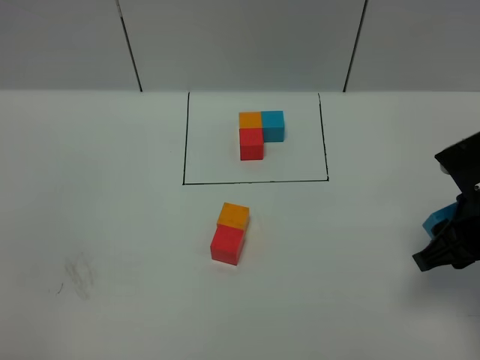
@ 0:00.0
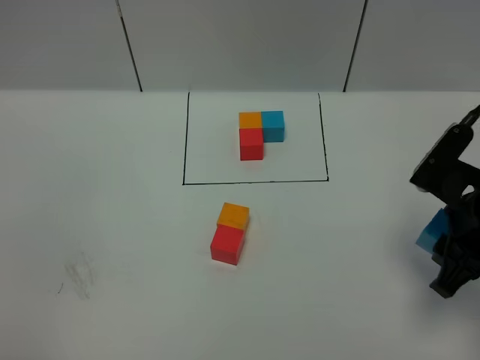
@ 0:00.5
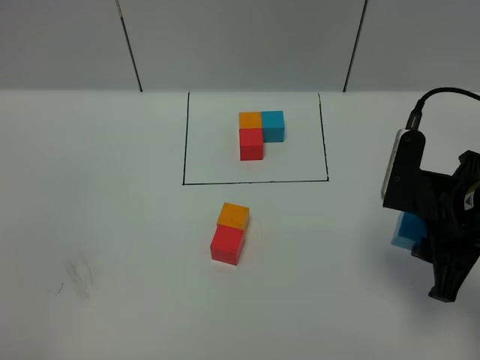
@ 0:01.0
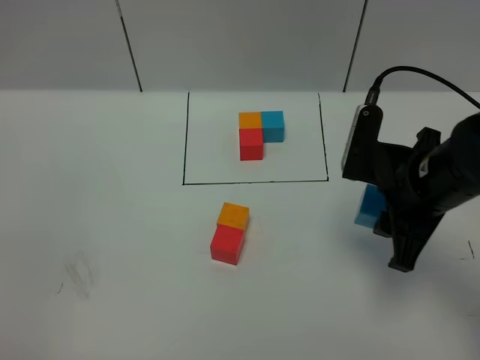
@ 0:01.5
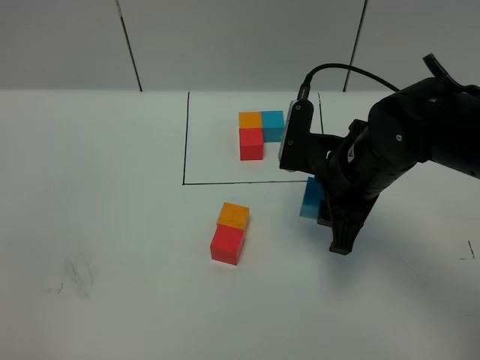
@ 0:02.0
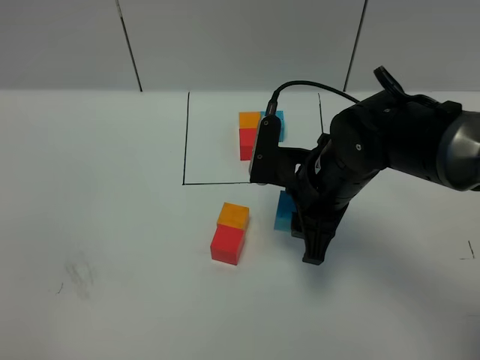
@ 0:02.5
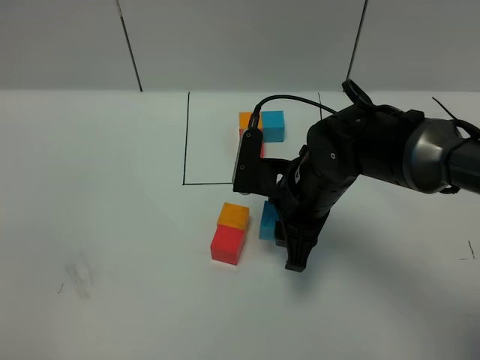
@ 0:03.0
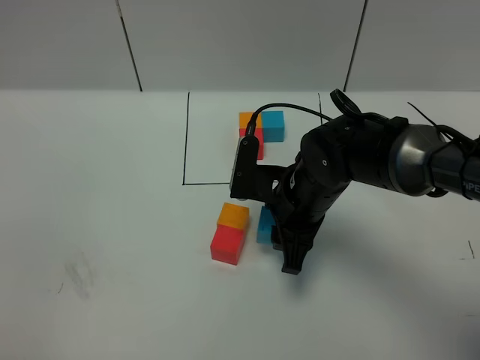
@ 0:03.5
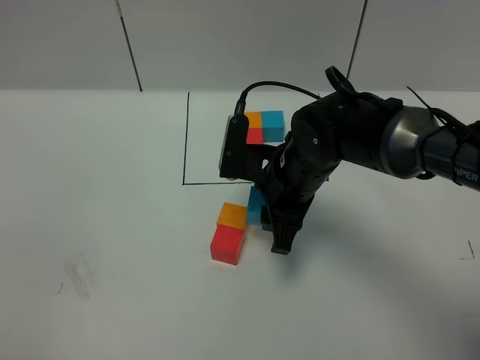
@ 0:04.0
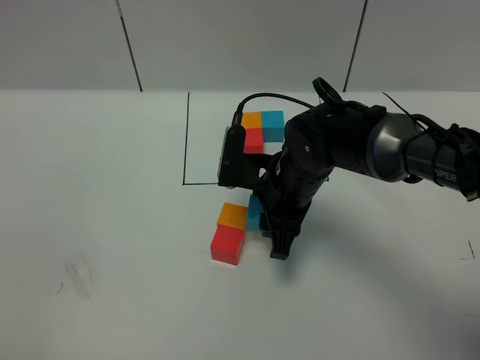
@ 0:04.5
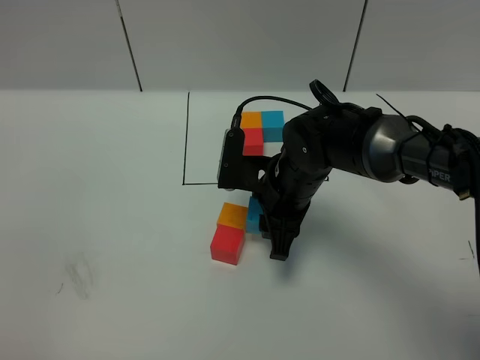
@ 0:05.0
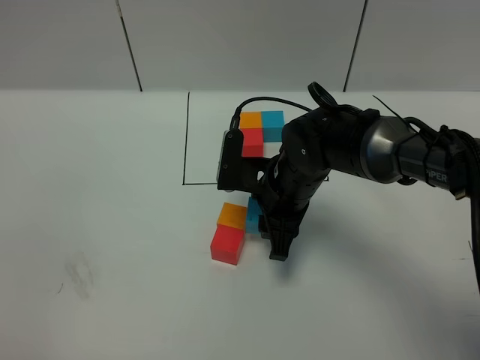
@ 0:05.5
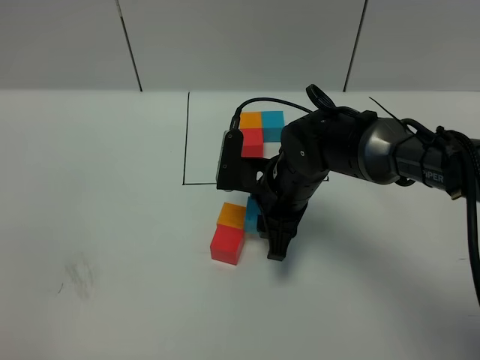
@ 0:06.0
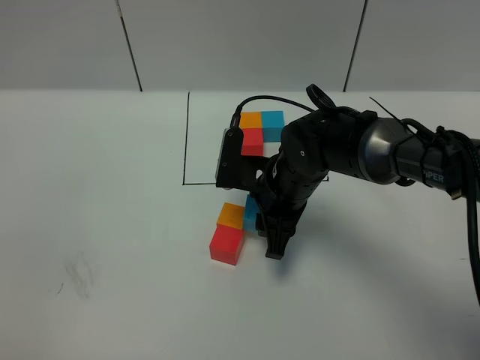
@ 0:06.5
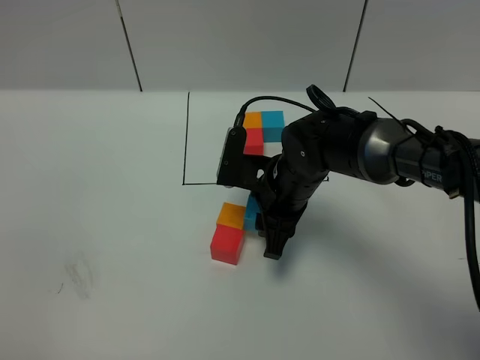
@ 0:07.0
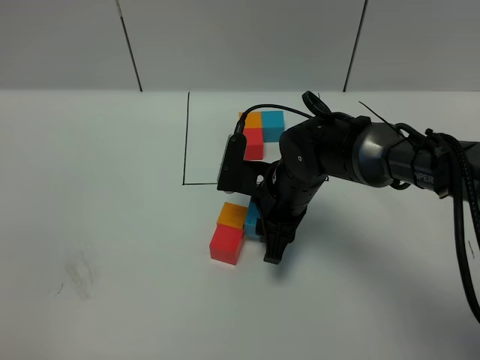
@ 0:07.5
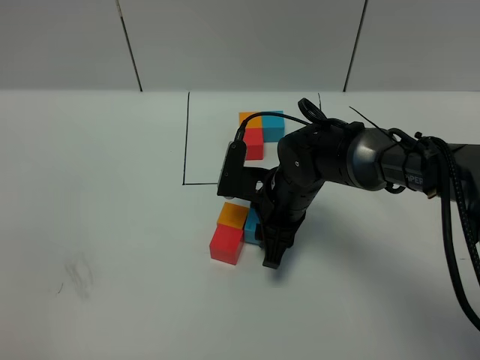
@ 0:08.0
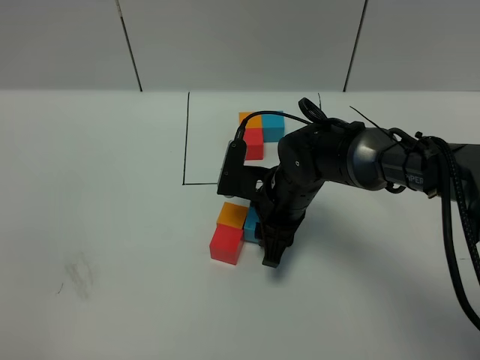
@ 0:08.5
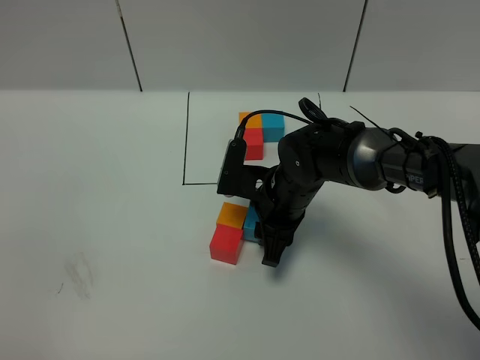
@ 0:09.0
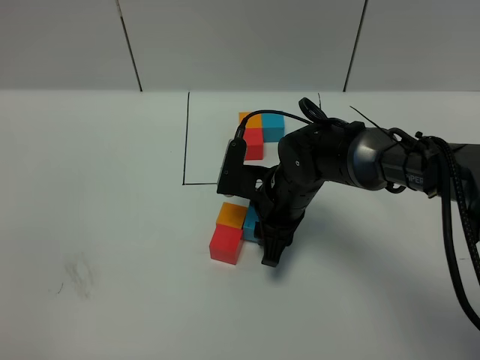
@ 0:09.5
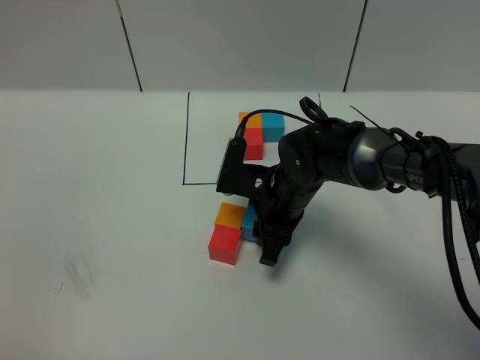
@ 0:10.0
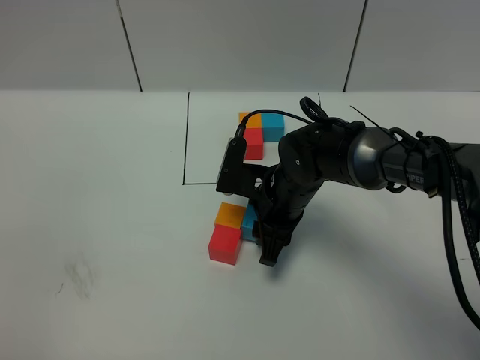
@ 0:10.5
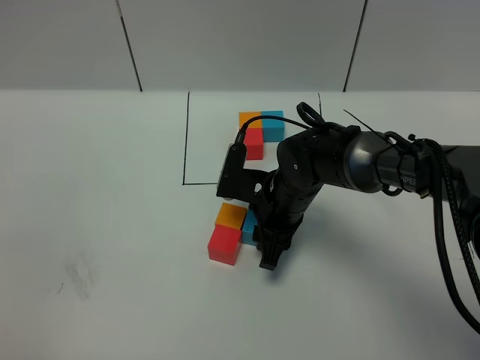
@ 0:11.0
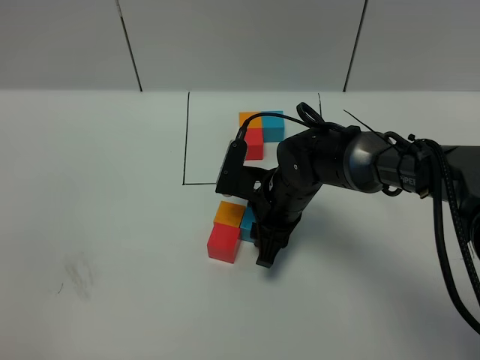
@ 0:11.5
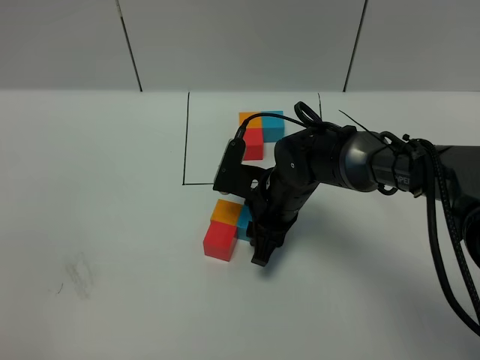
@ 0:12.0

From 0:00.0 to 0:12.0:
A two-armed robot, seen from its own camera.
Task of the whole recording: According to the building block template in front, assemble the scattered blocks together.
From 0:00.0 to 0:02.0: The right gripper heads to the left and forward, covering some 15 cm.
From 0:02.0 to 0:04.0: The right gripper is displaced to the left by approximately 5 cm.
From 0:04.0 to 0:08.0: The grippers stay close to where they were, moving slightly.
From 0:08.0 to 0:10.0: The two grippers keep their place.
From 0:10.0 to 0:12.0: There are only small adjustments of the grippers.

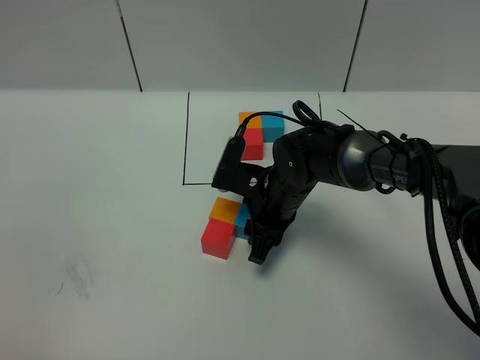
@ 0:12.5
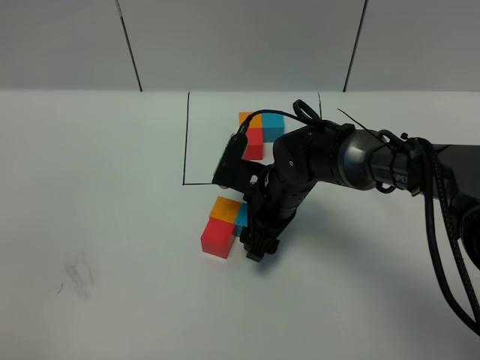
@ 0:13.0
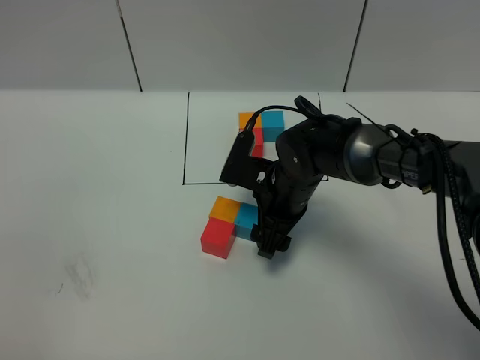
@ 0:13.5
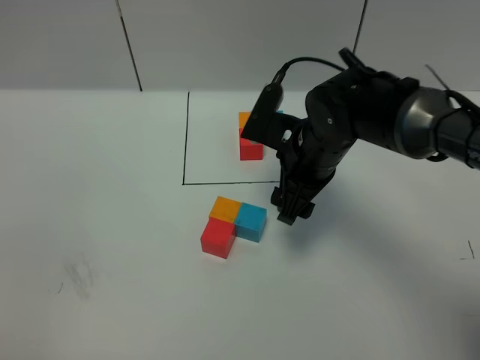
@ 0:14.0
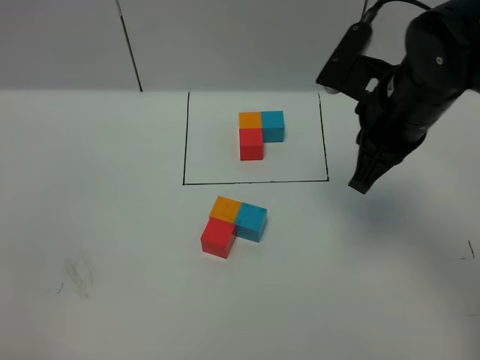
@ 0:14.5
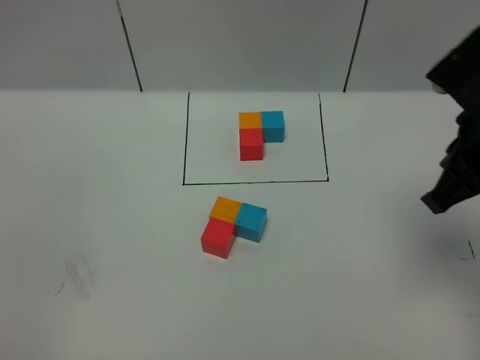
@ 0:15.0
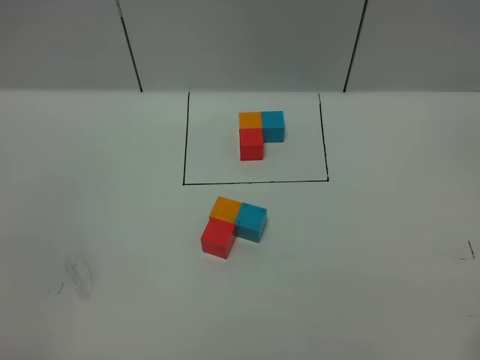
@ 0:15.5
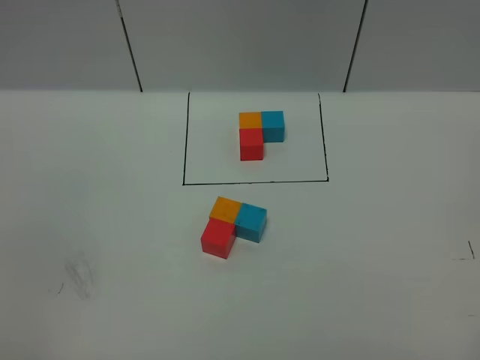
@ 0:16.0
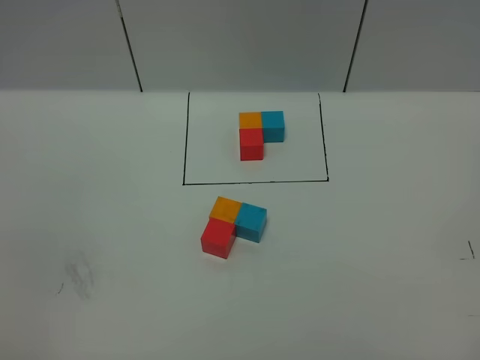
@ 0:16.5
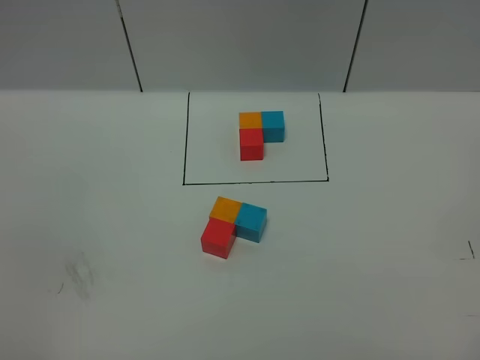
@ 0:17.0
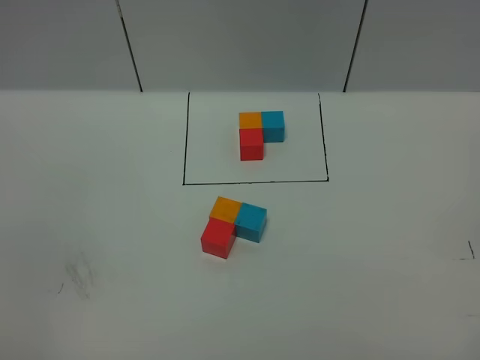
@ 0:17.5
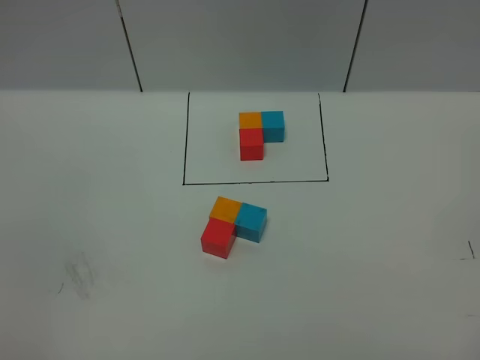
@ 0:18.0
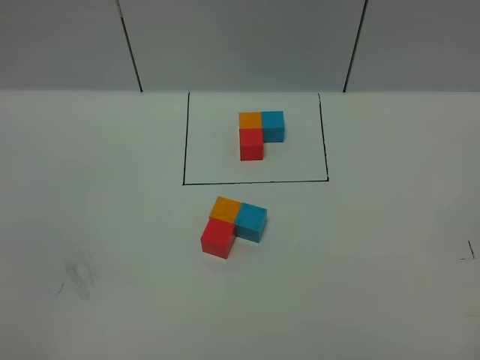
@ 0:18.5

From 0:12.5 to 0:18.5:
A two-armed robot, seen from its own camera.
Task of the whole recording: According to the building block template in front, assemble the scattered blocks together.
From 0:12.5 to 0:14.5: The right gripper is displaced upward and to the right by approximately 20 cm, and closes its fingers.
From 0:14.5 to 0:16.5: The right gripper travels backward and to the right by roughly 35 cm.
From 0:16.5 to 0:18.5: Neither gripper changes place.
